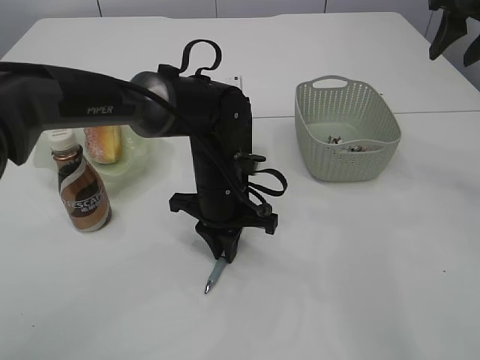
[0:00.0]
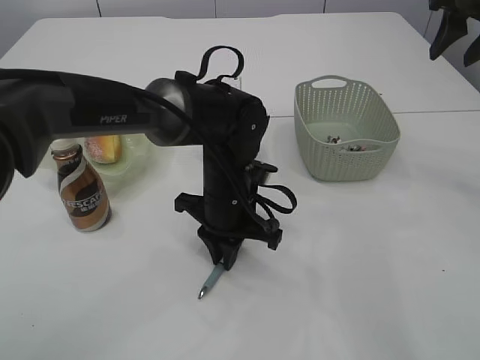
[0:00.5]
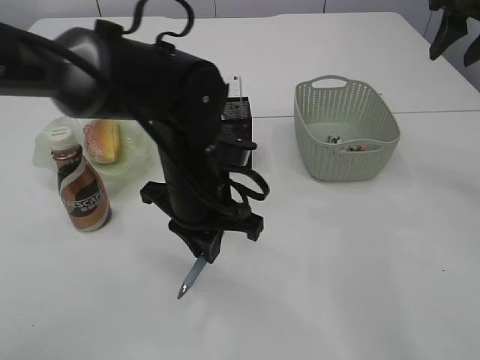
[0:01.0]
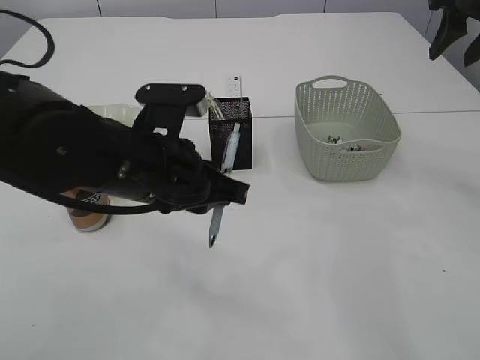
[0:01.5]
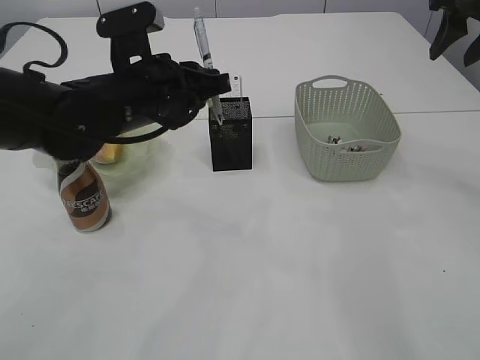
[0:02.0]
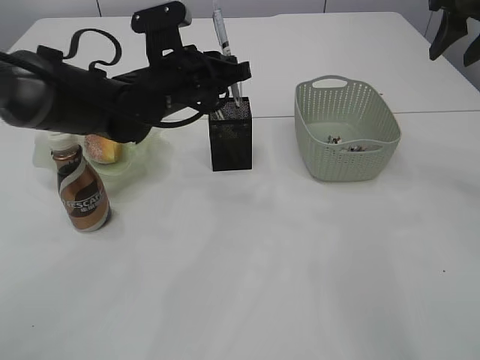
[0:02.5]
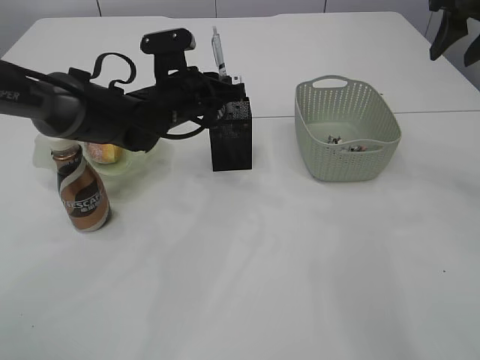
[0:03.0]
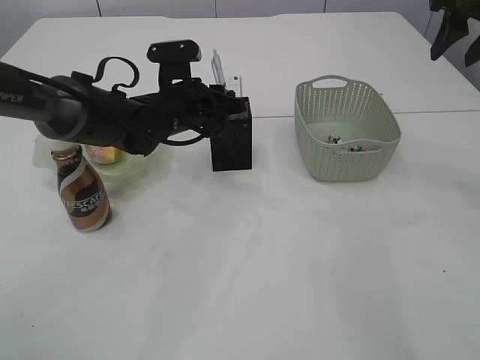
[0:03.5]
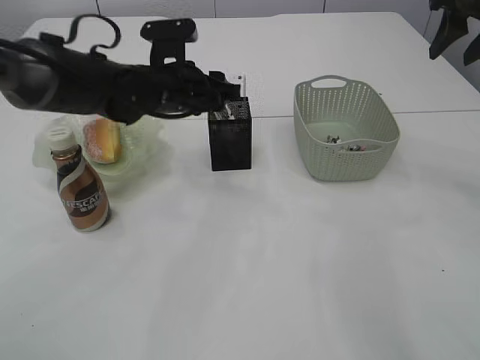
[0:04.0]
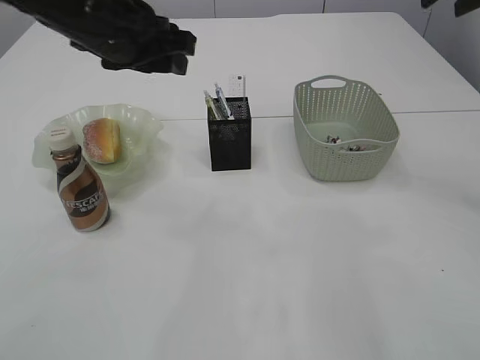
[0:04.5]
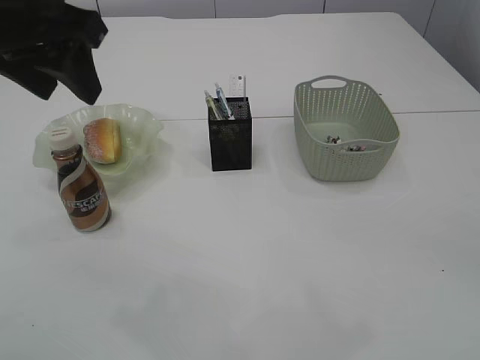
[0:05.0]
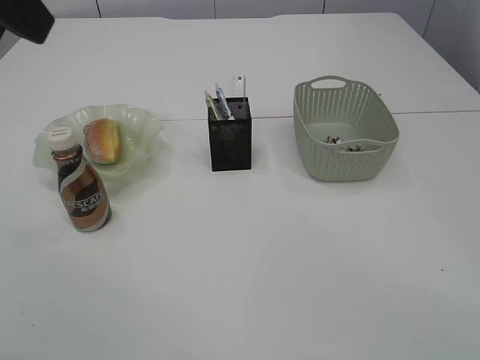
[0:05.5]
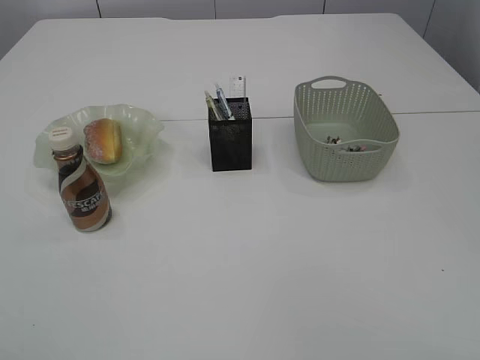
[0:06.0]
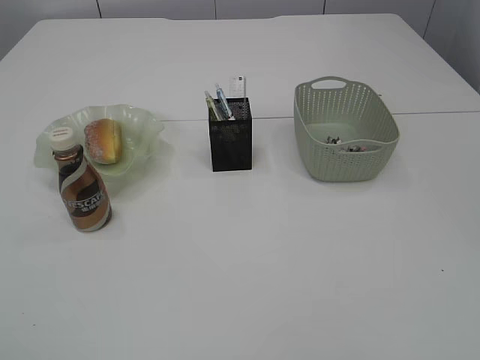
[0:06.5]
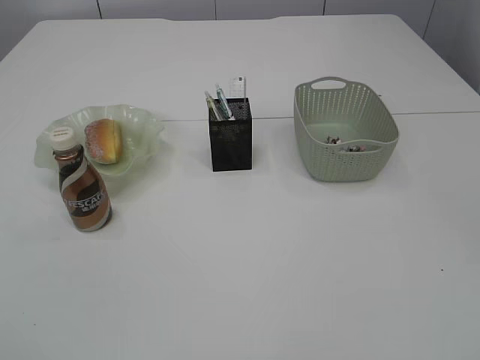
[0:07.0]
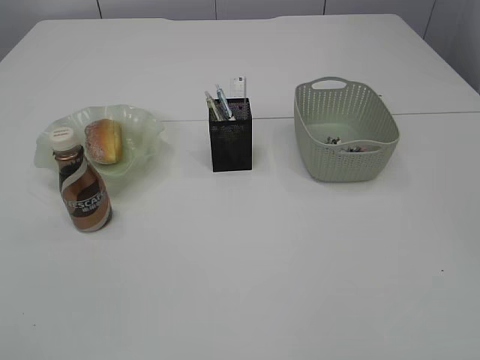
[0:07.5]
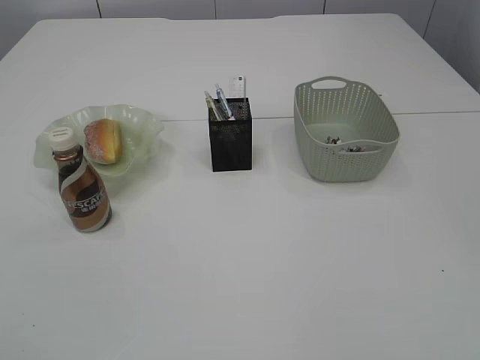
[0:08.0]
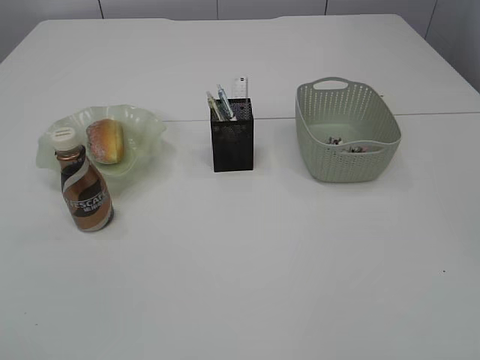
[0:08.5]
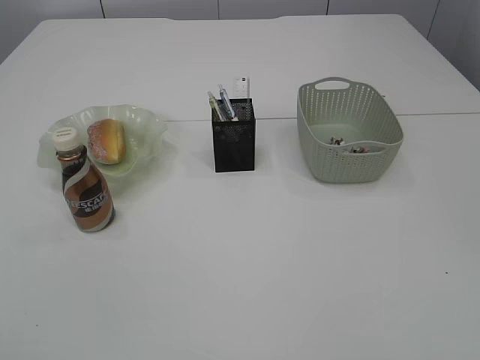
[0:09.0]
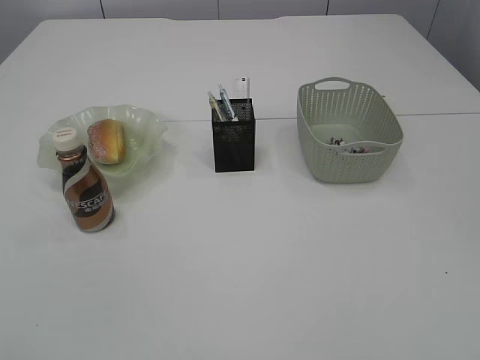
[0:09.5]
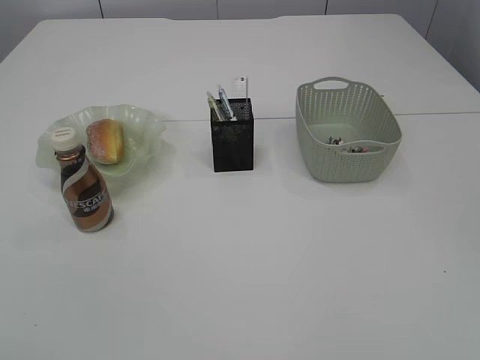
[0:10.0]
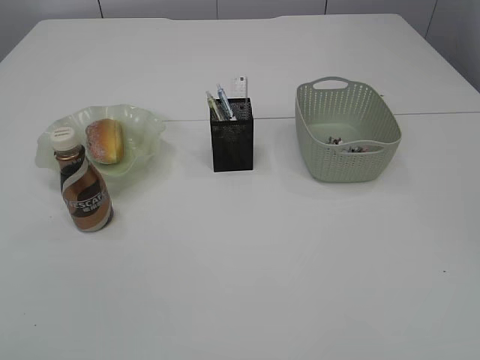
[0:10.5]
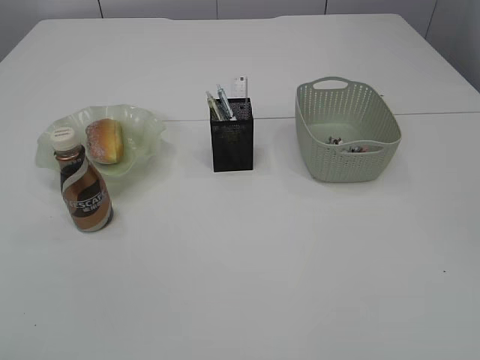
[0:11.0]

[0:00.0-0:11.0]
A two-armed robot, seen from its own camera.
Step, 0:01.5 to 0:05.0: Place the pen into the pen holder.
0:00.0 to 0:02.0: The left gripper moves upward and to the left, some 15 cm.
0:02.0 to 0:03.5: The left gripper travels forward and downward by approximately 10 cm.
0:03.5 to 0:05.5: The left gripper travels upward and backward by some 35 cm, and opens. The right gripper travels backward by about 30 cm.
0:05.5 to 0:07.5: The left gripper goes some 30 cm backward, downward and to the left.
0:09.0 to 0:11.0: Both grippers stay put.

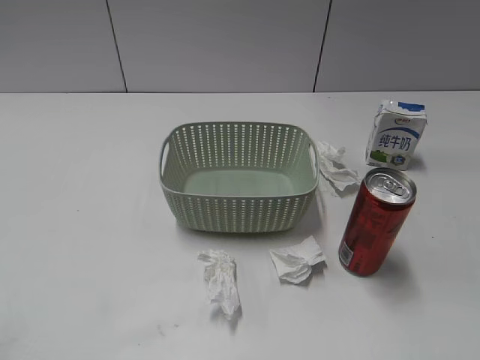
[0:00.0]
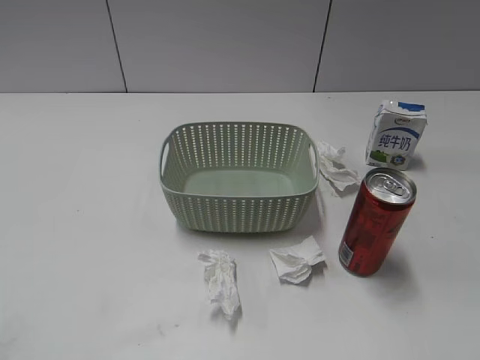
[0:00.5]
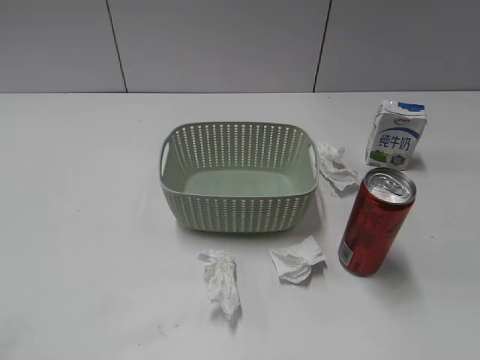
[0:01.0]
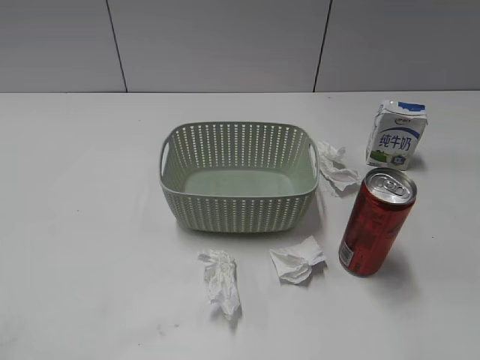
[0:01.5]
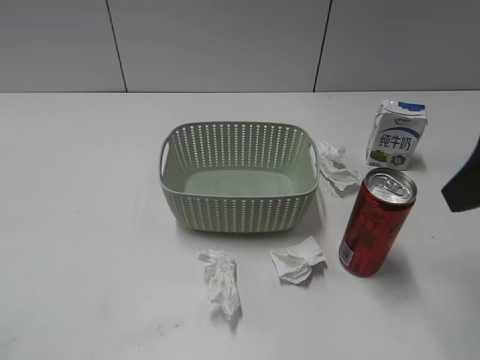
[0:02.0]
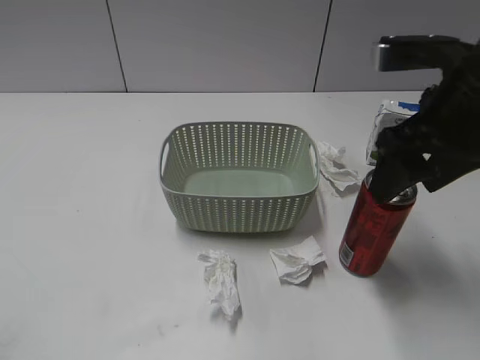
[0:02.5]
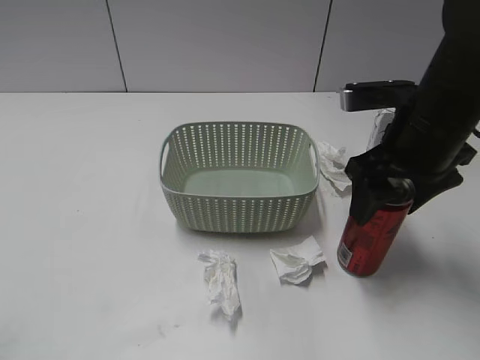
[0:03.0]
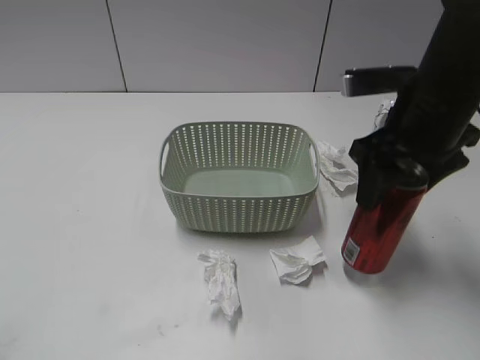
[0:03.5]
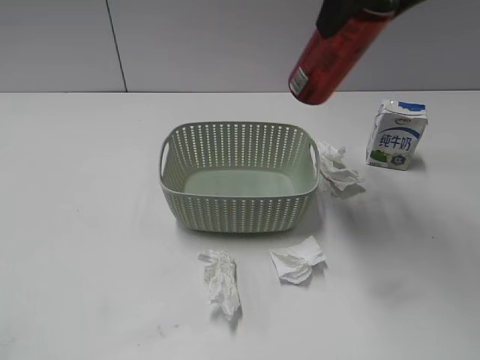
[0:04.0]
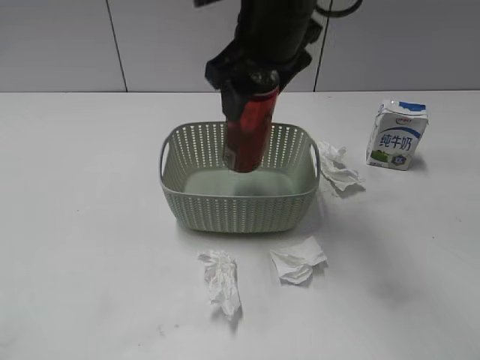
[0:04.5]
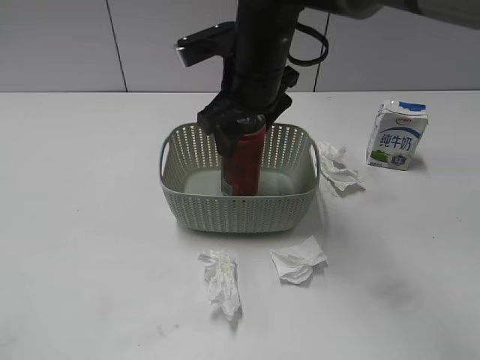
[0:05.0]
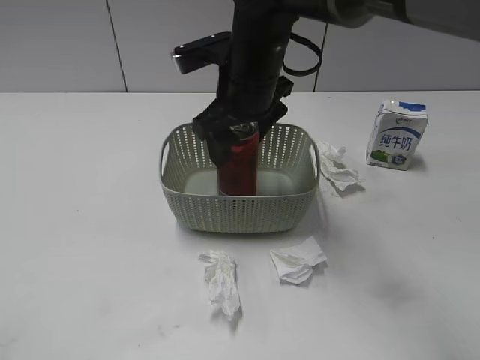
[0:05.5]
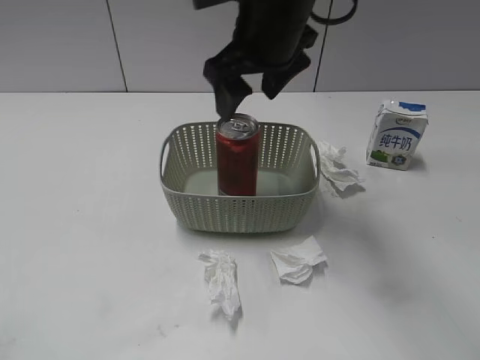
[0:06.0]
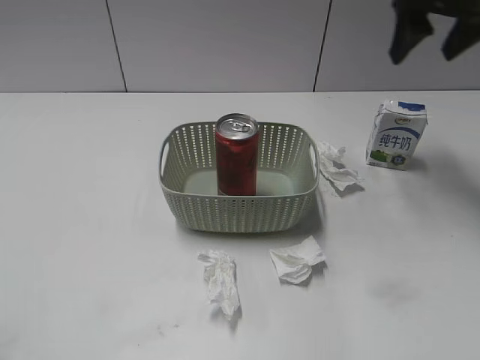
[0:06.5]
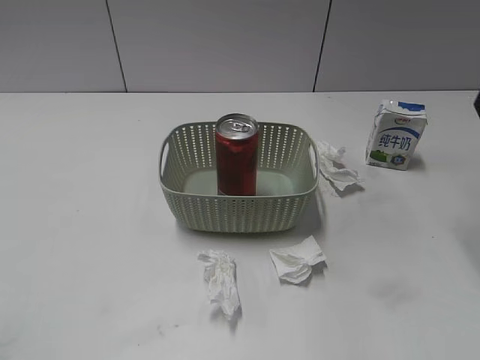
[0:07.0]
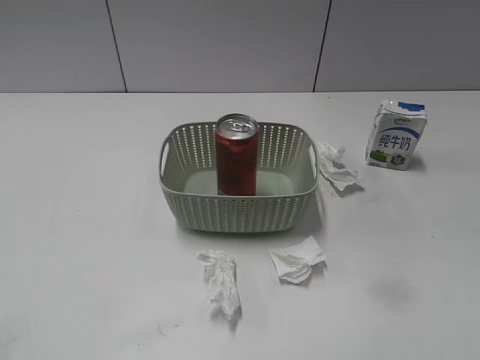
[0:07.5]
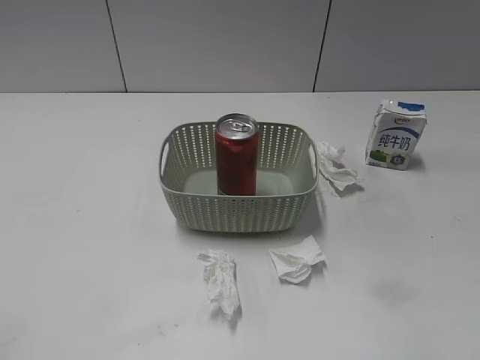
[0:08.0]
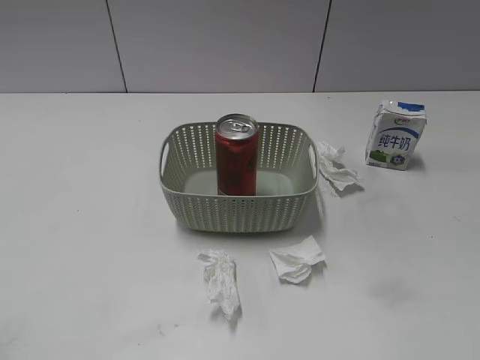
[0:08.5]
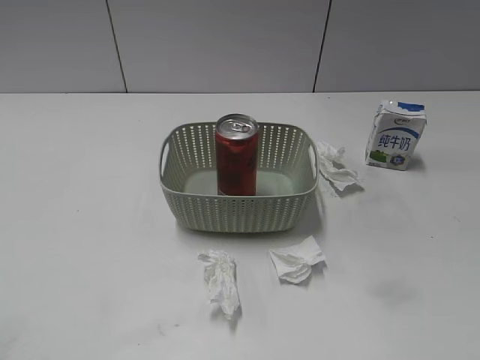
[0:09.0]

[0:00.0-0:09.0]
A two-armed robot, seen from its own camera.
Step, 0:02.0 to 0:03.0: Grasp the cola can with right gripper.
Step, 0:03.5 to 0:06.0: Place the cola can in the basket with right gripper.
0:02.0 to 0:04.5: The right gripper is displaced to the left and forward by about 25 cm, and closes up.
0:04.5 to 0:07.0: The right gripper heads to the right, covering some 25 cm, and opens its fingers.

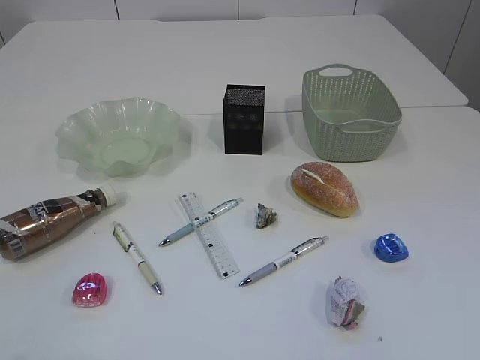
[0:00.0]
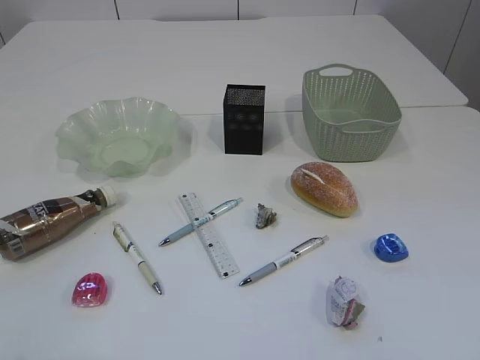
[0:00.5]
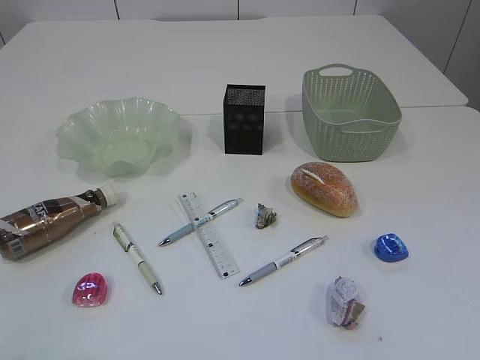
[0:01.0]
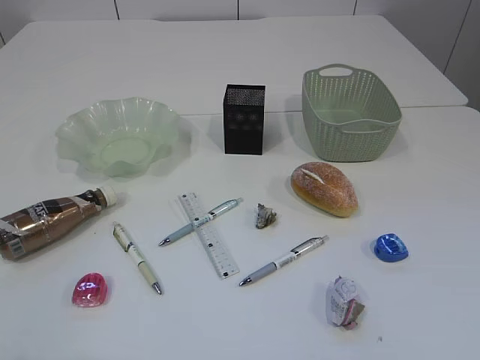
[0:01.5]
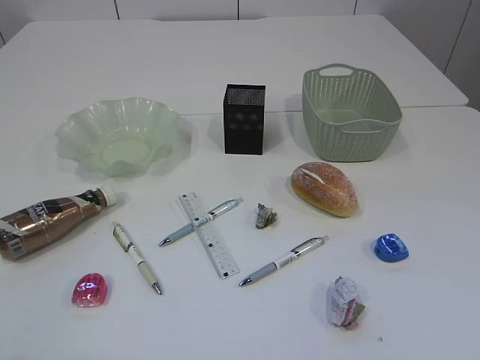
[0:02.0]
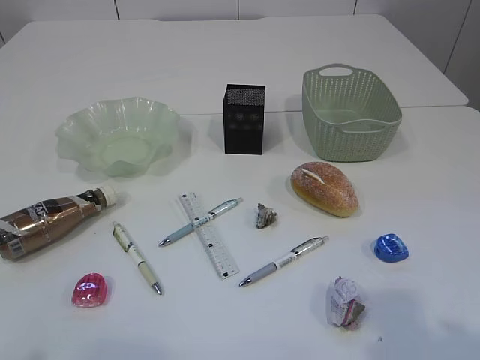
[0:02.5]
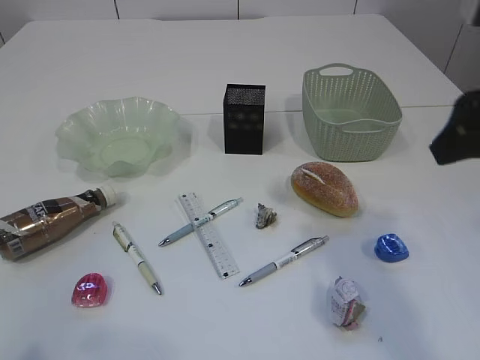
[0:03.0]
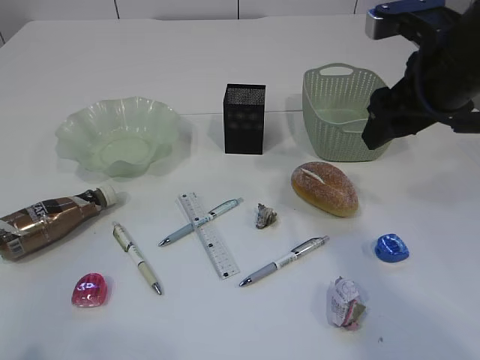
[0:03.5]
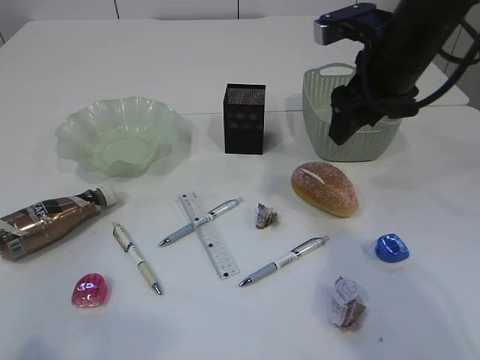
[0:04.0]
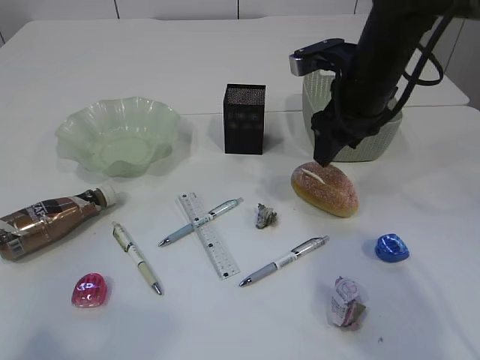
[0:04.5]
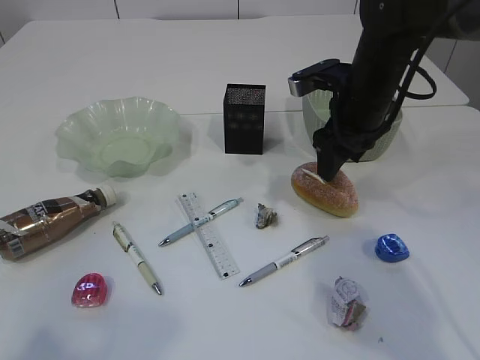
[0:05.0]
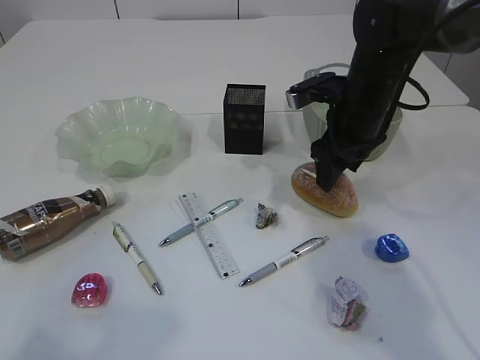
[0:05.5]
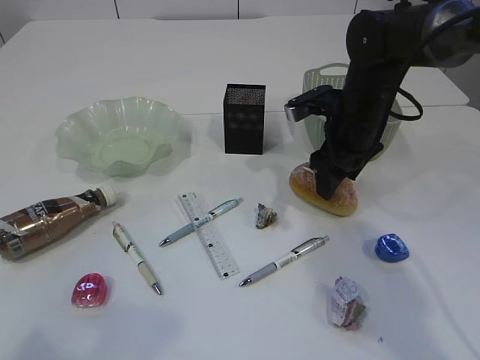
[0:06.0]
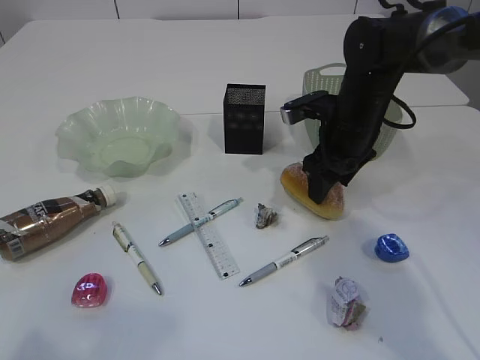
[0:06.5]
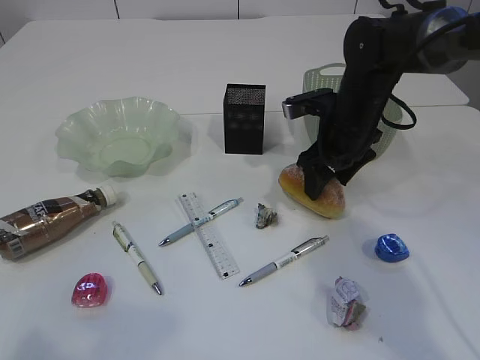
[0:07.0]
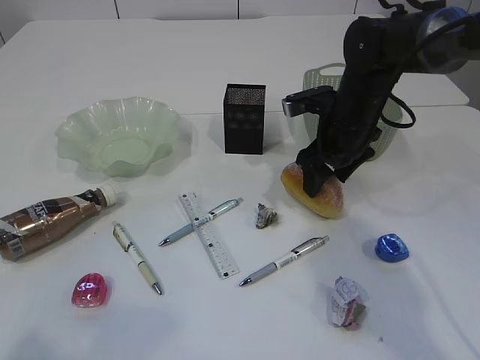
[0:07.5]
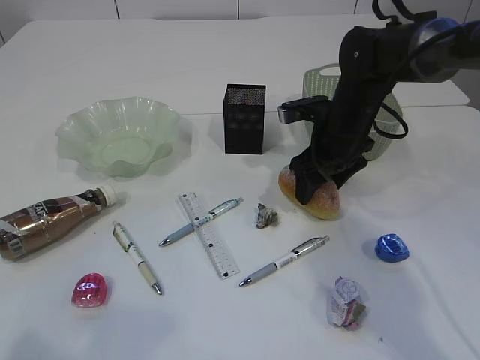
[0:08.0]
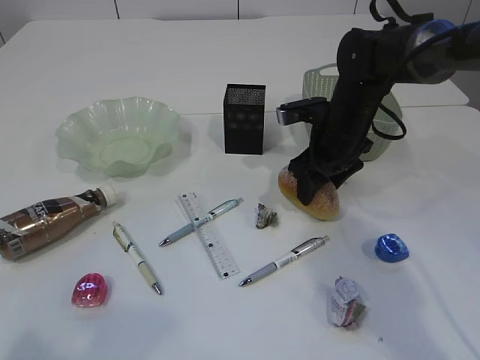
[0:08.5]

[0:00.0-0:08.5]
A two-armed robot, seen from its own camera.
0:02.0 to 0:04.0: The left gripper ends up some 5 cm from where it was, while the right gripper travels forward by about 40 cm.
0:04.0 to 0:06.5: The right gripper moves downward, roughly 10 cm.
0:06.5 to 0:08.5: The grippers move only a little.
